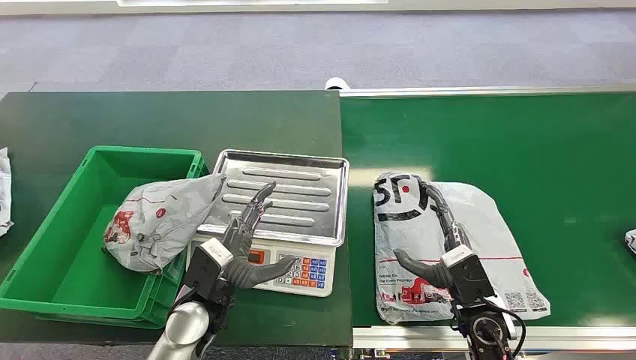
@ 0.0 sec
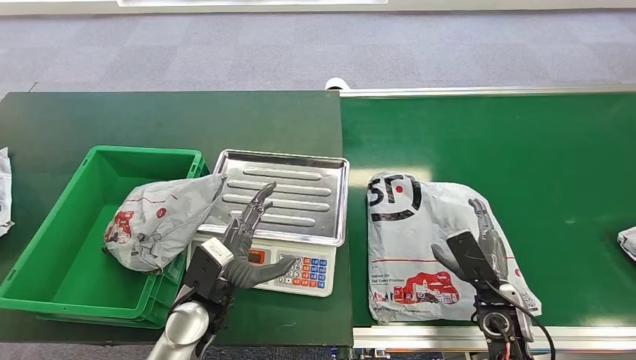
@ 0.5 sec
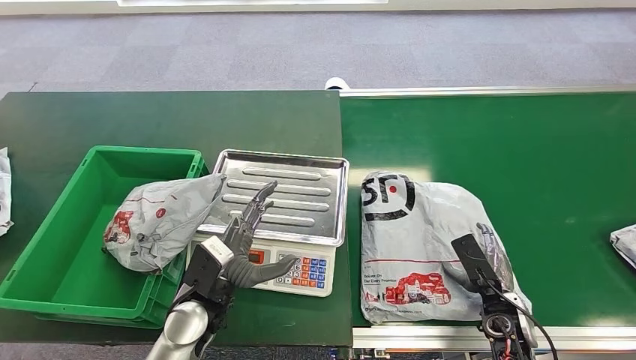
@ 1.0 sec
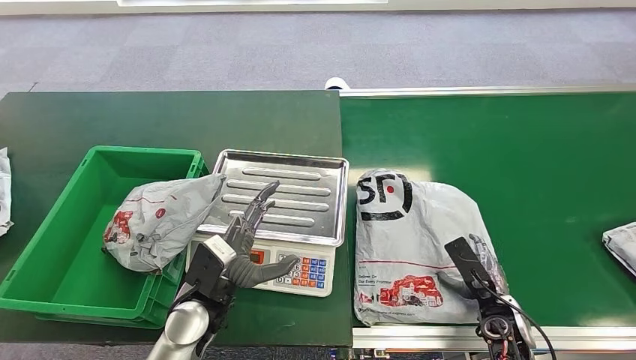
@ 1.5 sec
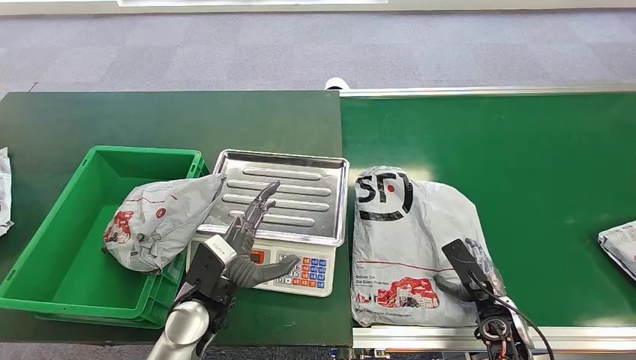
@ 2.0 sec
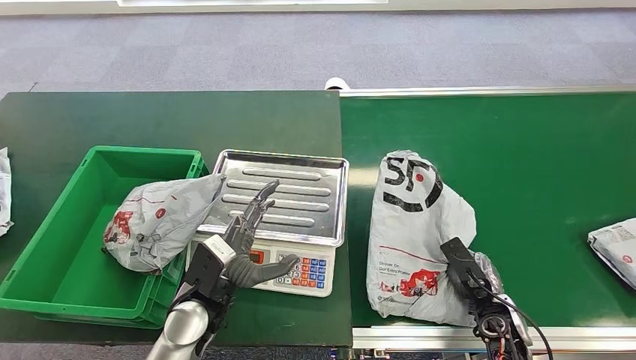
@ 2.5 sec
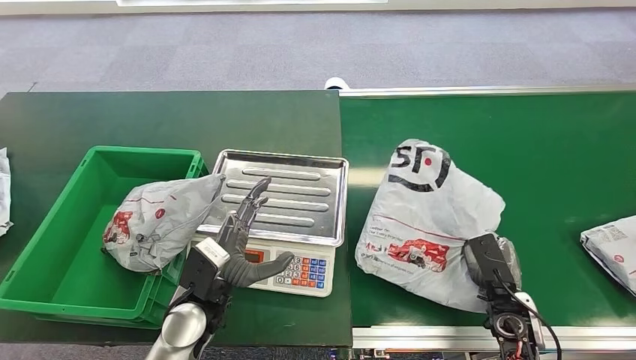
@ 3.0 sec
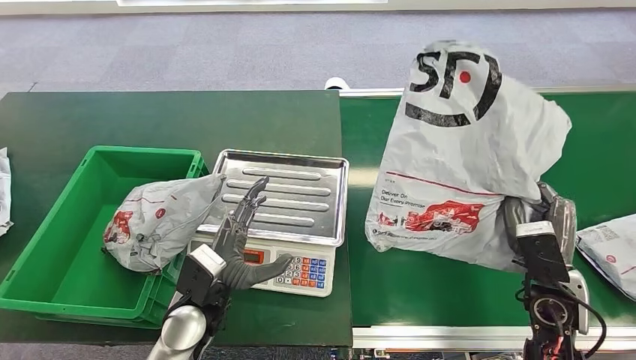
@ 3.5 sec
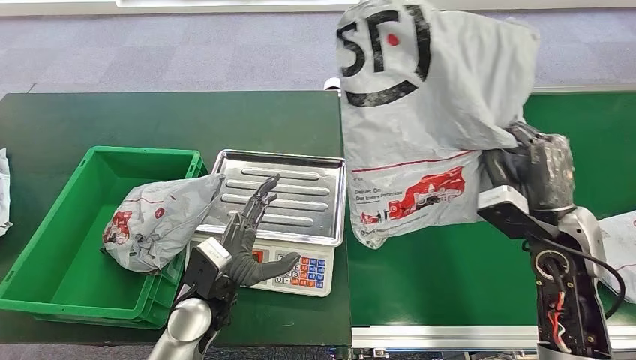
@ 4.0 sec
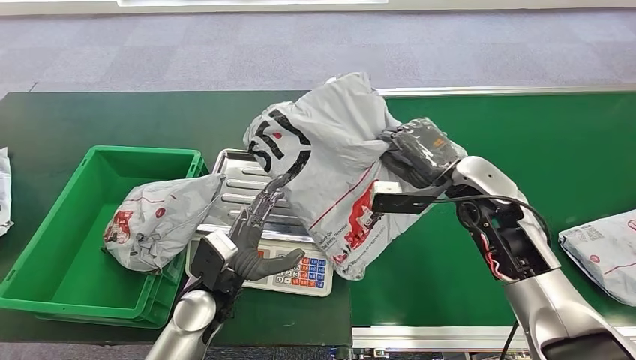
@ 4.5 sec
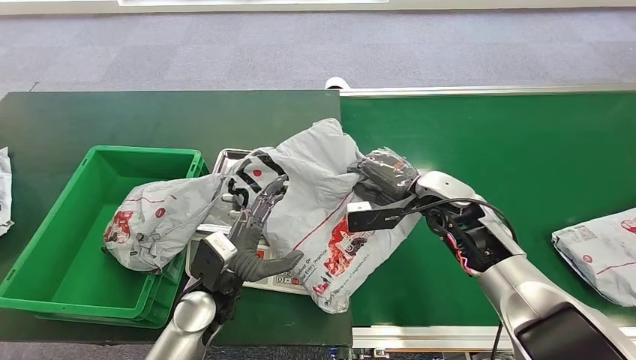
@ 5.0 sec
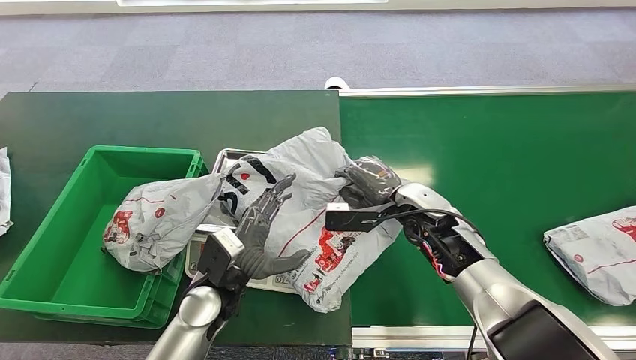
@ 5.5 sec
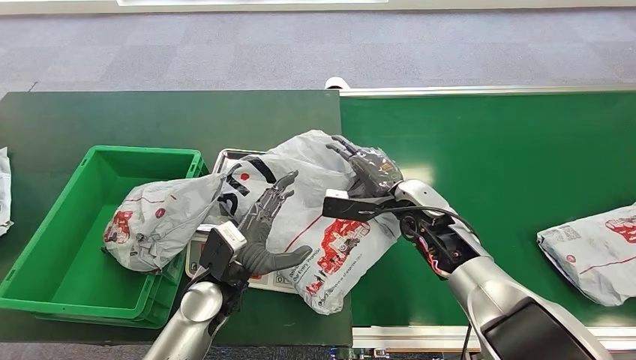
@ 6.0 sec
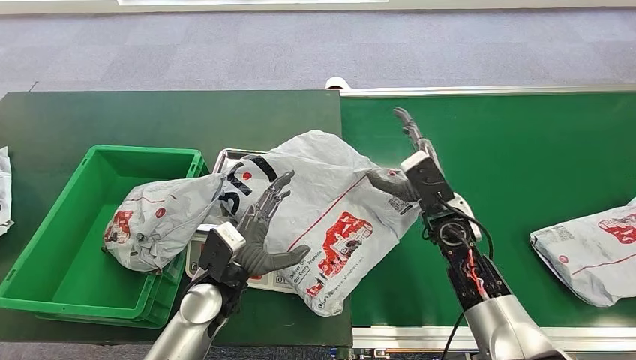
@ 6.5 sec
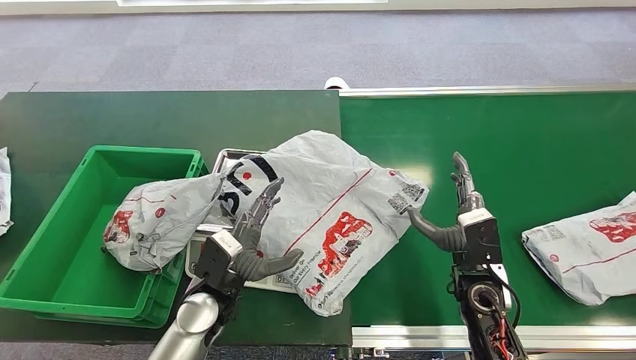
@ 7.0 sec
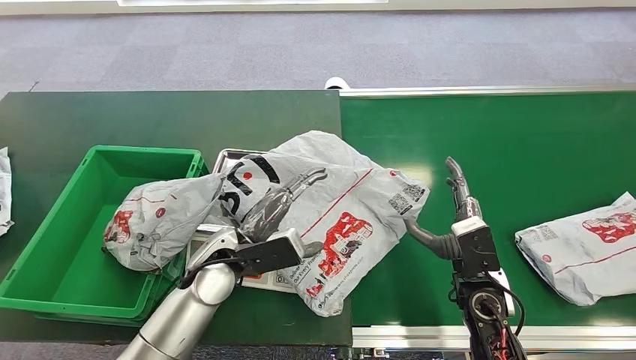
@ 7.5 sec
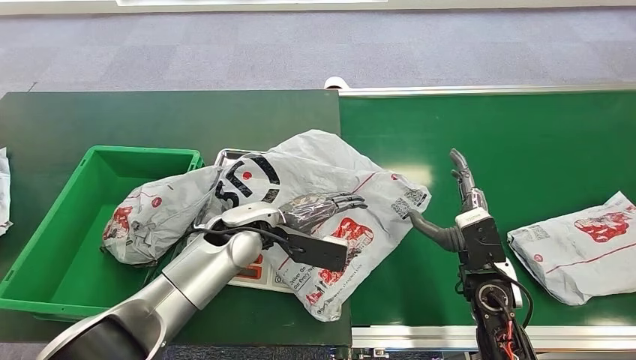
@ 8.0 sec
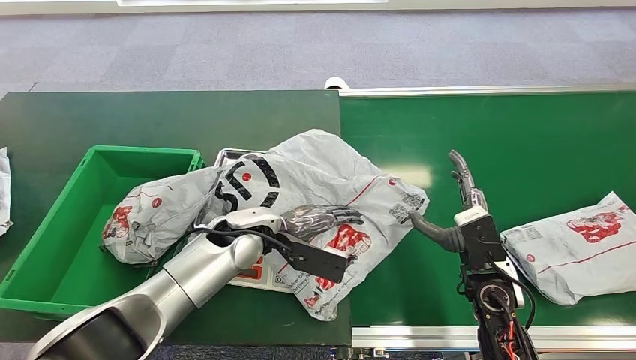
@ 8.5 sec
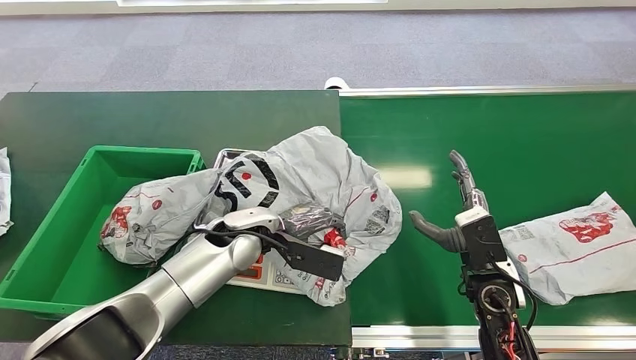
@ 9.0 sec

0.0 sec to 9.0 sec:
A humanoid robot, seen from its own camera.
Step, 0.0 sec to 3.5 sec: Pick up the package from the conveyor belt.
Step, 4.0 sec to 6.0 sec: Place the package onto the inbound machine.

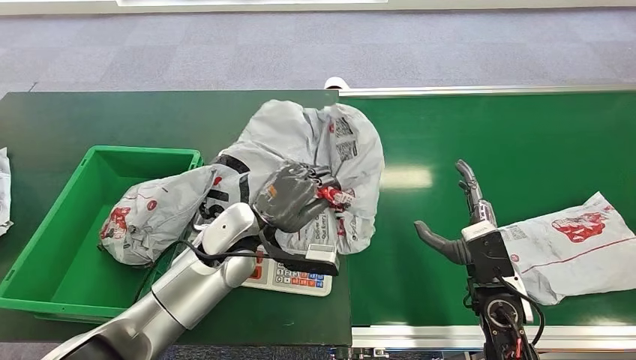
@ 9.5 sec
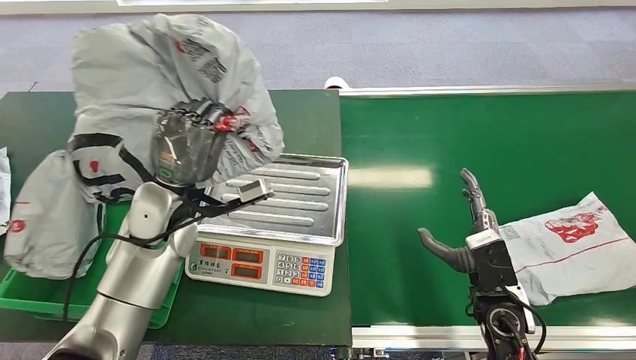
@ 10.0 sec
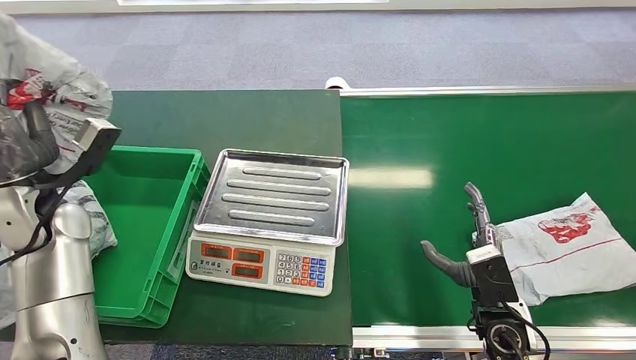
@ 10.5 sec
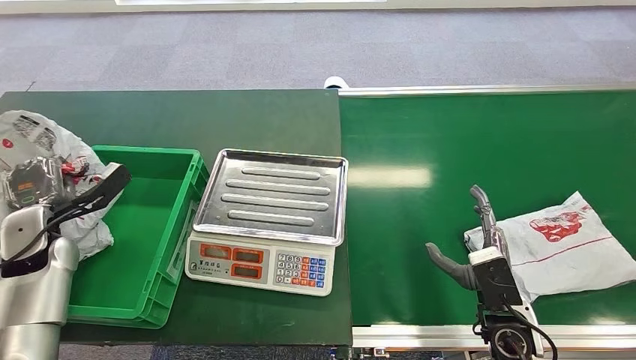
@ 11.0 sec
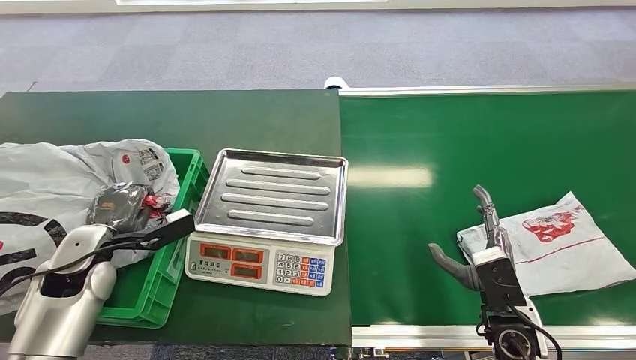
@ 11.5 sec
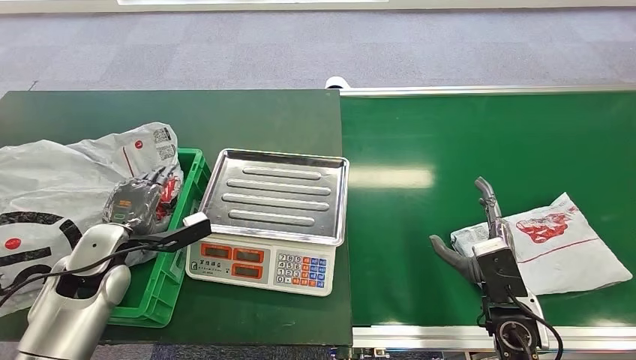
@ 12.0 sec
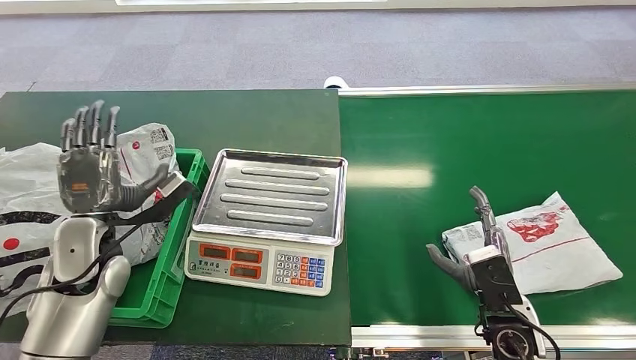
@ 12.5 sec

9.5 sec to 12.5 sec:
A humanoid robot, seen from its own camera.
Step, 11.0 sec to 12.5 sec: Place the package into the parcel locker.
11.0 sec to 12.5 sec: The left hand travels to the right by some 10 cm.

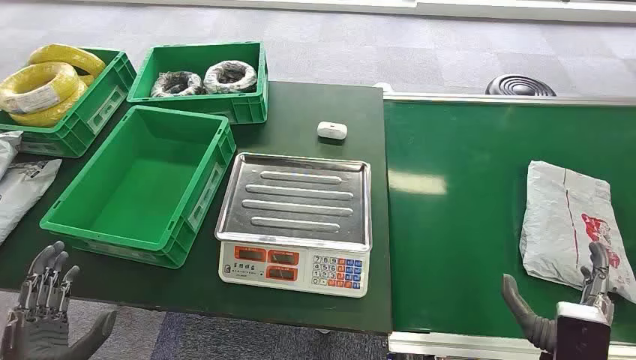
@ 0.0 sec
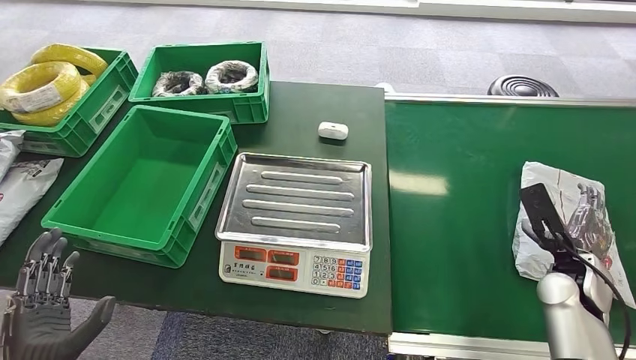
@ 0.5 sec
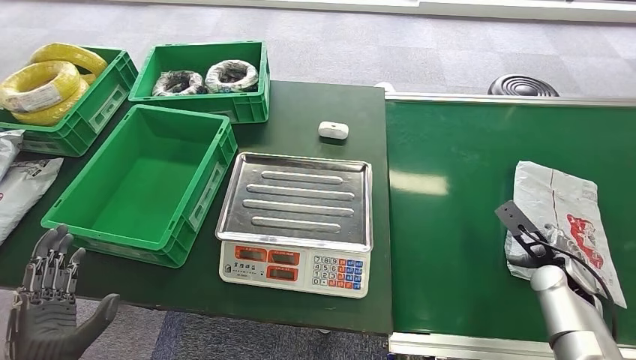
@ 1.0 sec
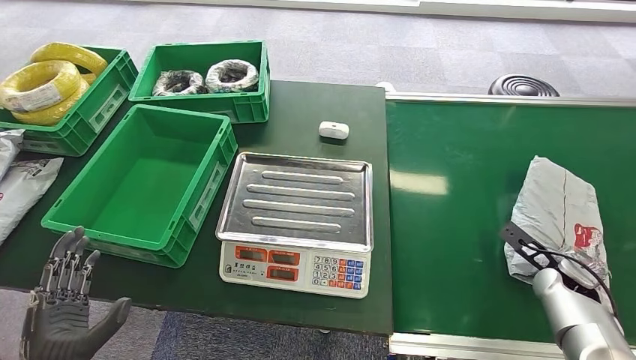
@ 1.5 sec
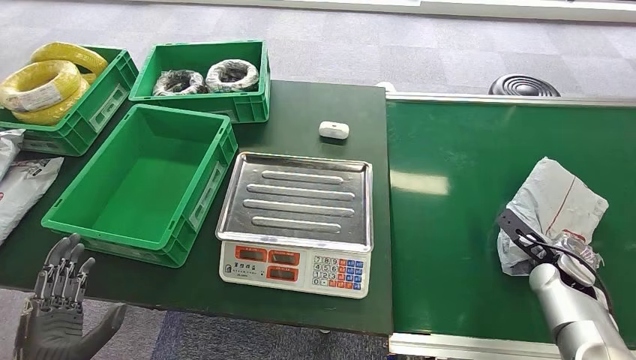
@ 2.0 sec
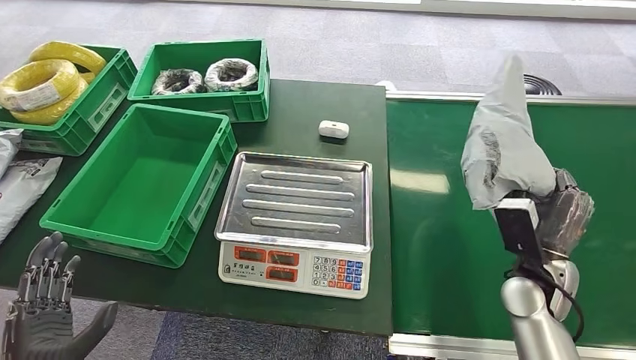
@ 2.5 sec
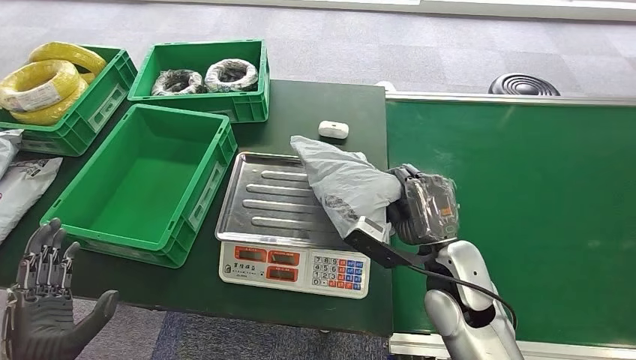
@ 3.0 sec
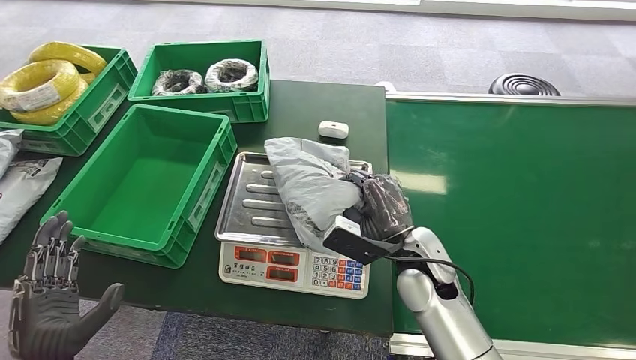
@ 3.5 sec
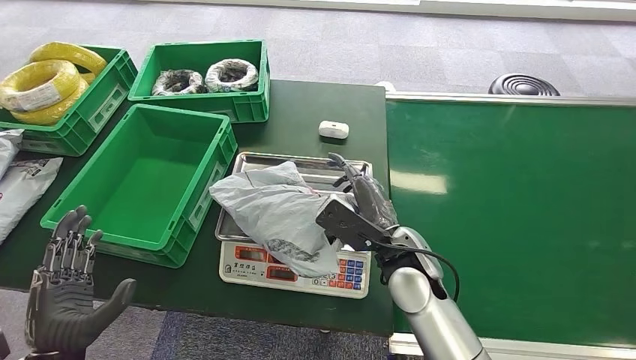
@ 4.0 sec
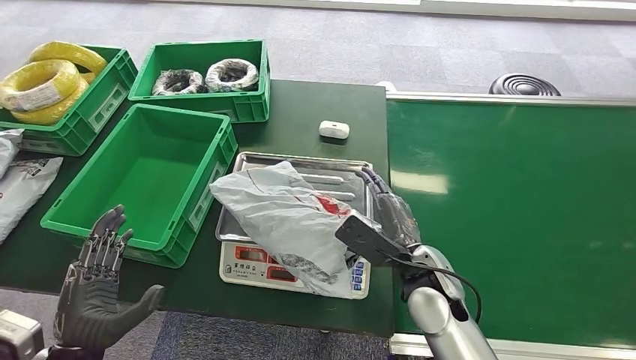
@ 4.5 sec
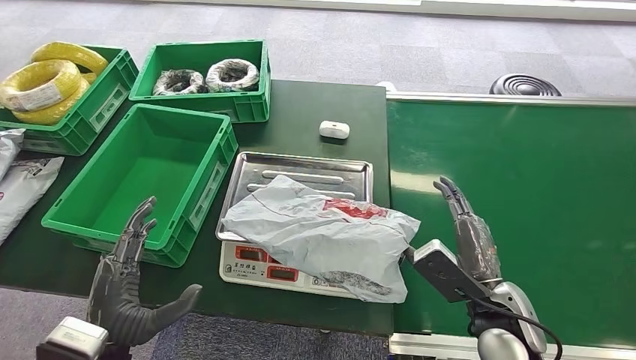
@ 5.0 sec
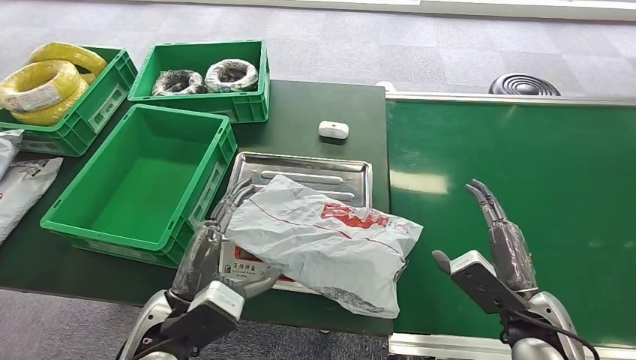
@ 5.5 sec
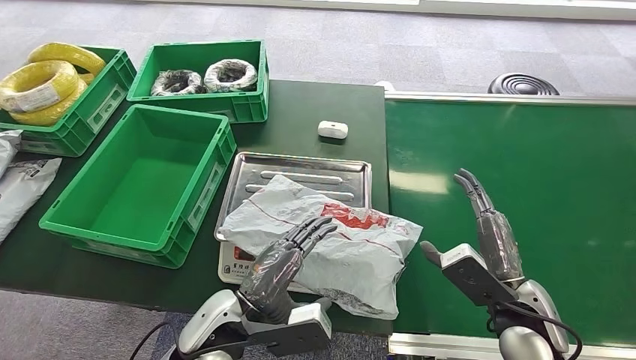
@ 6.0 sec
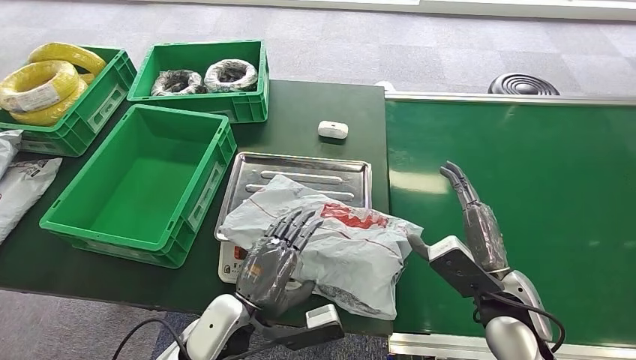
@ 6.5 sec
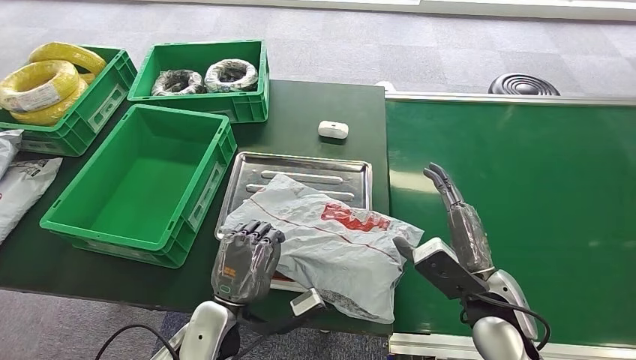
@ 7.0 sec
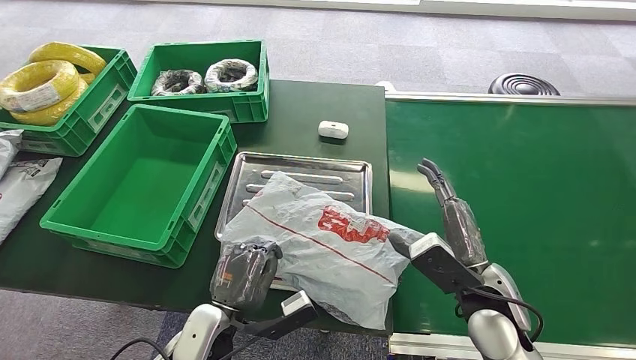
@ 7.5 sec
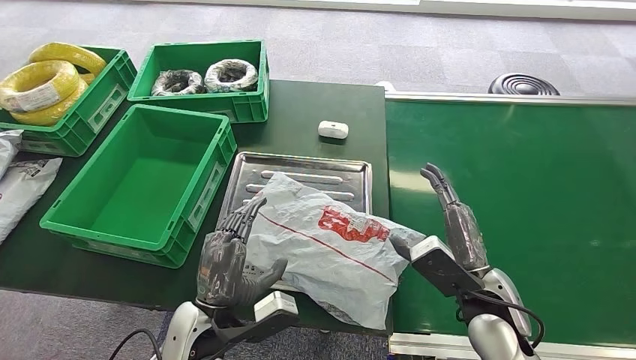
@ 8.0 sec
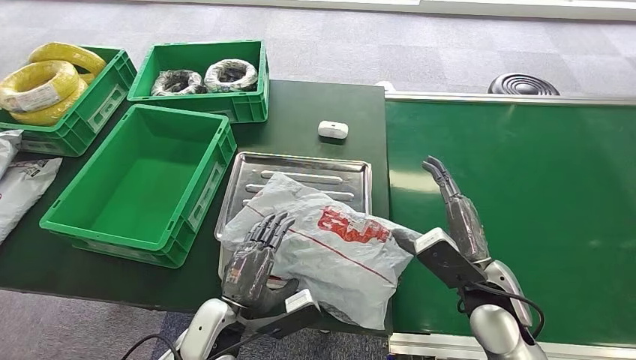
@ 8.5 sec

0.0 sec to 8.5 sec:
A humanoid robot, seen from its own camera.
Step, 0.0 sec to 2.5 sec: Pick up the package from the conveyor belt.
Step, 3.0 sec to 5.0 sec: Place the package onto the inbound machine.
2.0 sec to 4.0 sec: The right hand travels to the left by some 35 cm.
